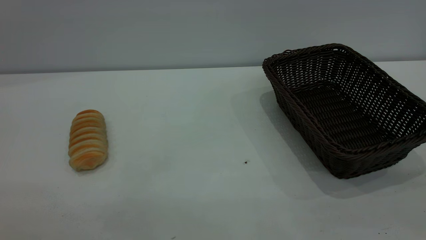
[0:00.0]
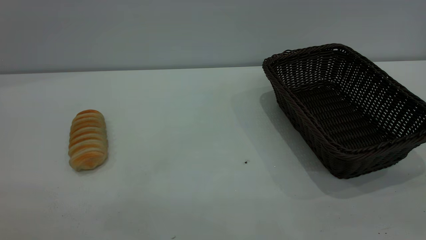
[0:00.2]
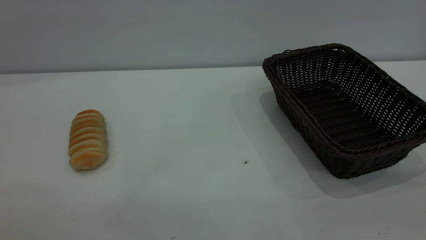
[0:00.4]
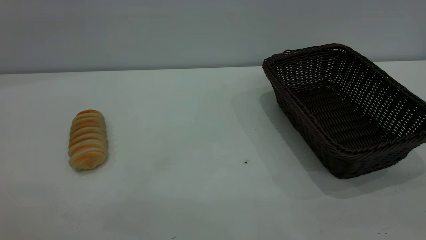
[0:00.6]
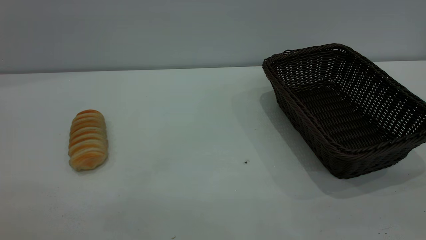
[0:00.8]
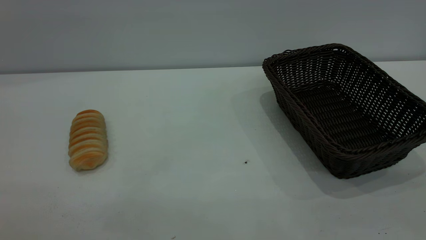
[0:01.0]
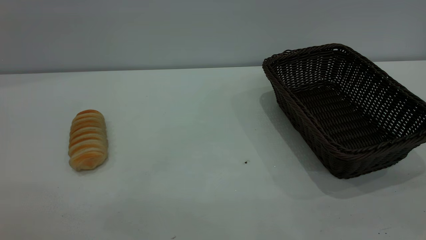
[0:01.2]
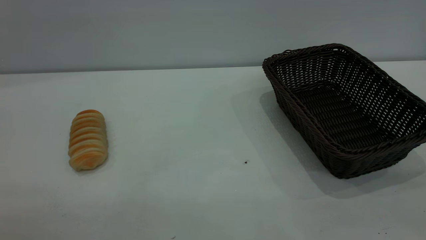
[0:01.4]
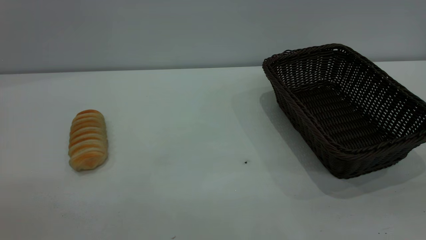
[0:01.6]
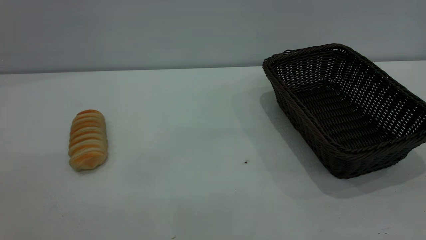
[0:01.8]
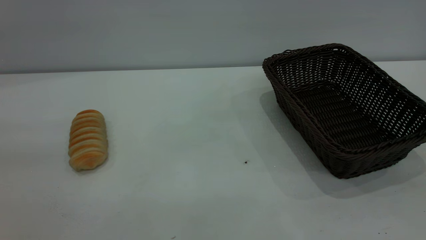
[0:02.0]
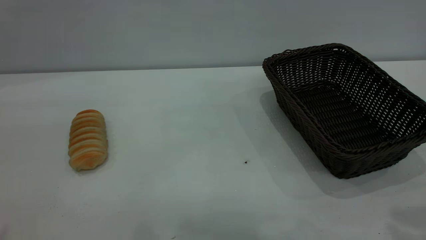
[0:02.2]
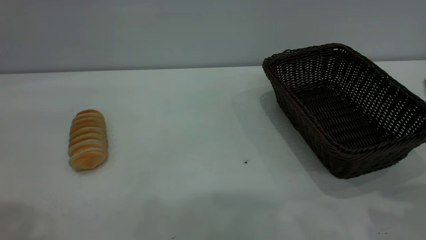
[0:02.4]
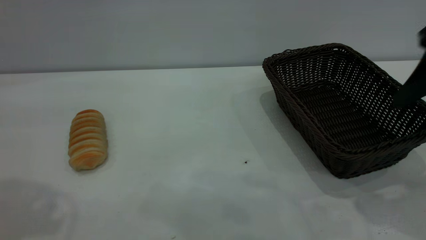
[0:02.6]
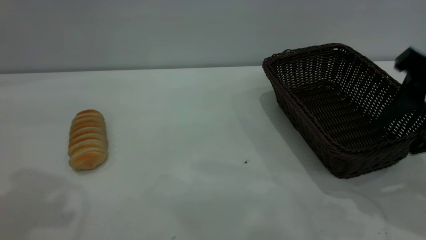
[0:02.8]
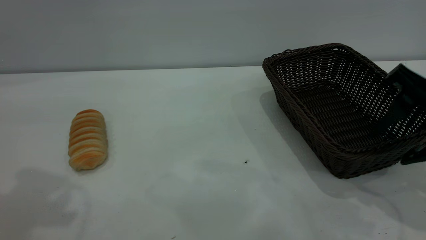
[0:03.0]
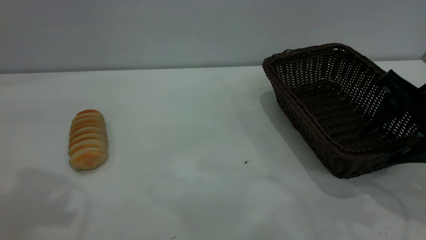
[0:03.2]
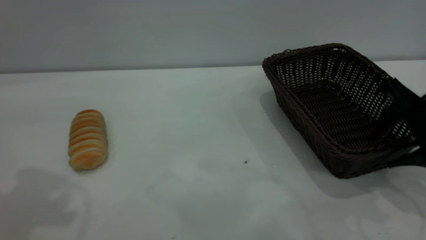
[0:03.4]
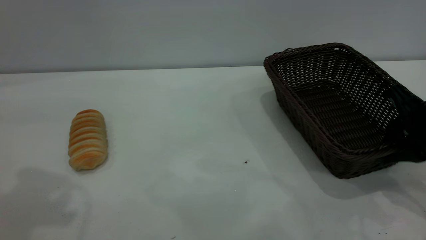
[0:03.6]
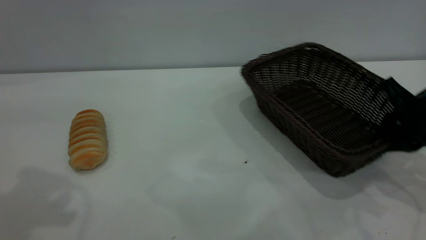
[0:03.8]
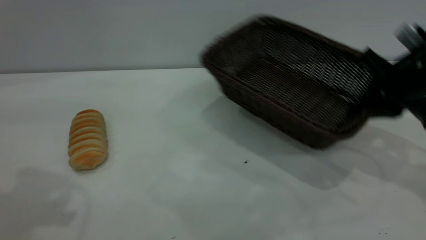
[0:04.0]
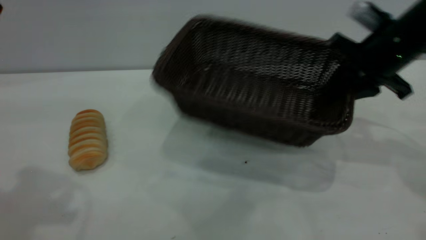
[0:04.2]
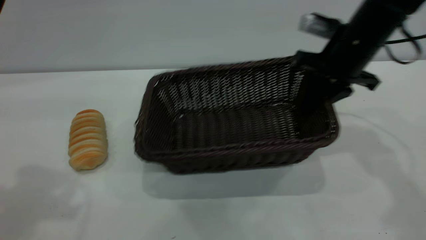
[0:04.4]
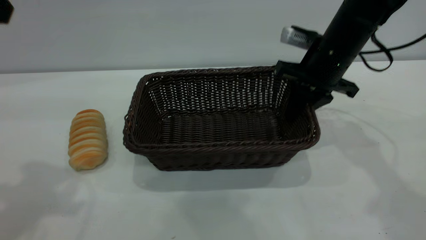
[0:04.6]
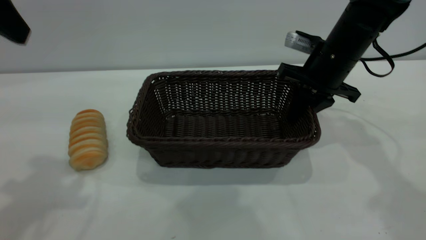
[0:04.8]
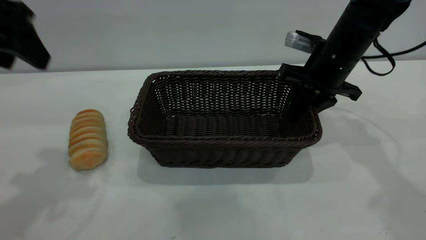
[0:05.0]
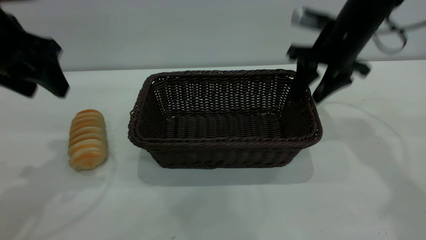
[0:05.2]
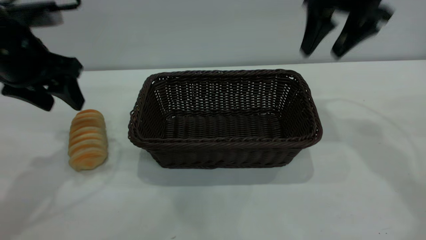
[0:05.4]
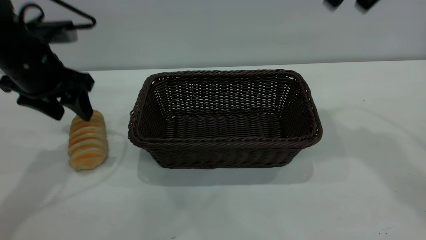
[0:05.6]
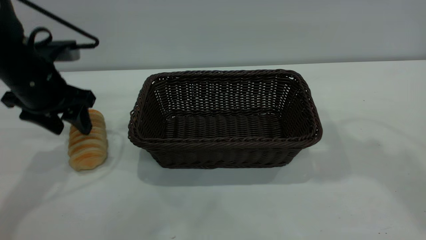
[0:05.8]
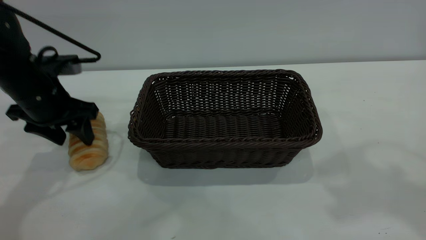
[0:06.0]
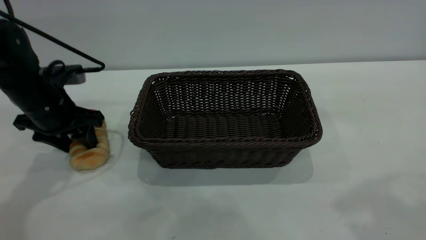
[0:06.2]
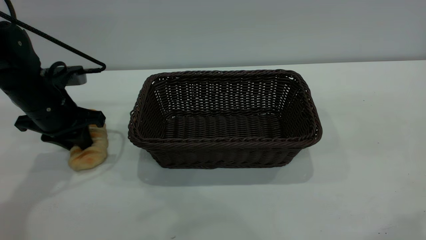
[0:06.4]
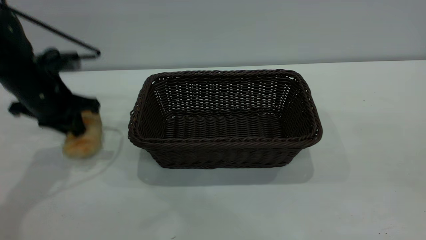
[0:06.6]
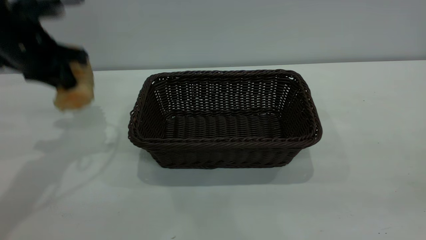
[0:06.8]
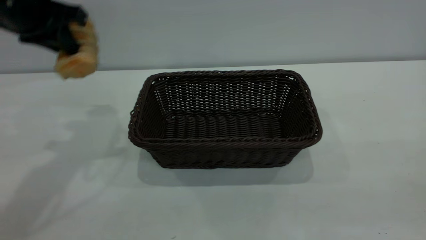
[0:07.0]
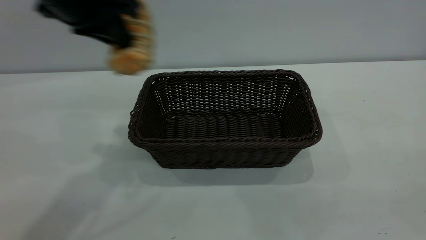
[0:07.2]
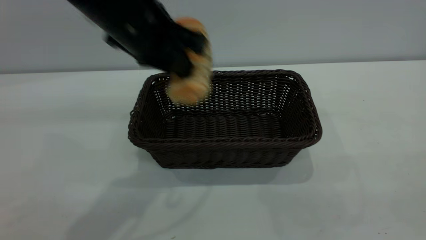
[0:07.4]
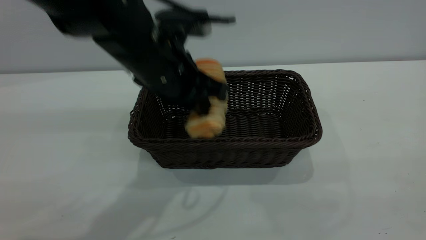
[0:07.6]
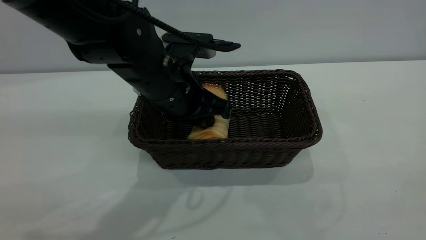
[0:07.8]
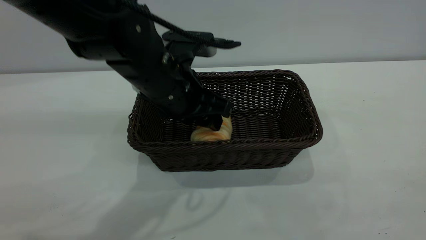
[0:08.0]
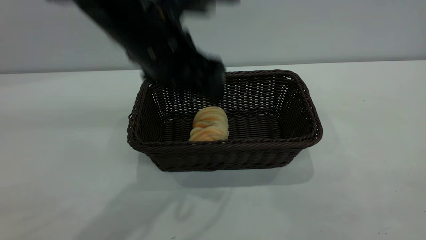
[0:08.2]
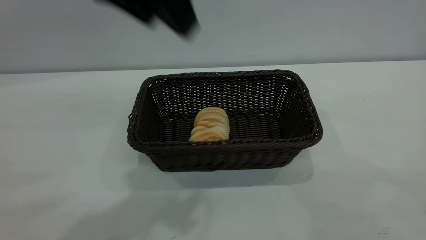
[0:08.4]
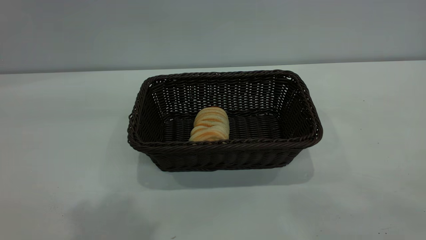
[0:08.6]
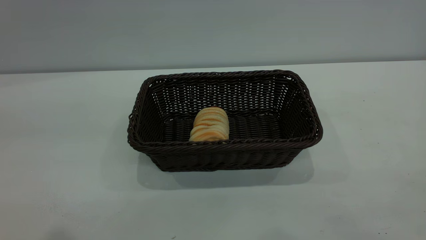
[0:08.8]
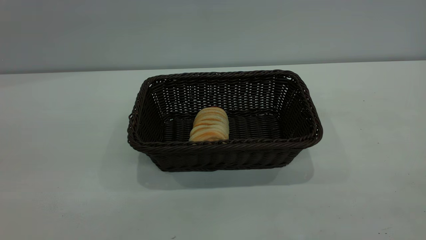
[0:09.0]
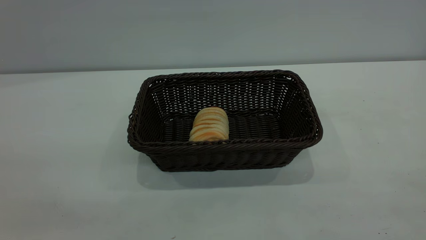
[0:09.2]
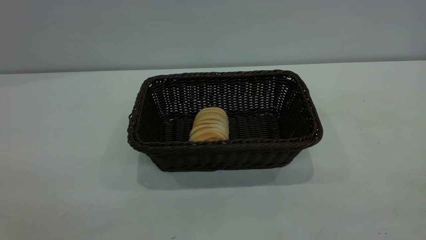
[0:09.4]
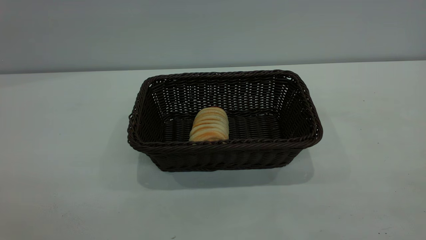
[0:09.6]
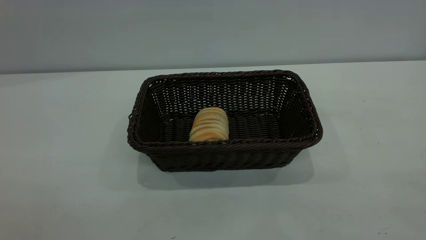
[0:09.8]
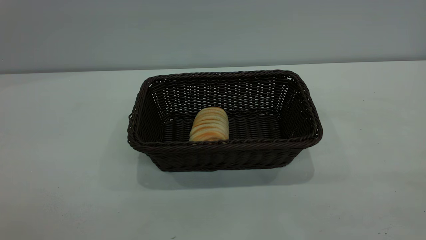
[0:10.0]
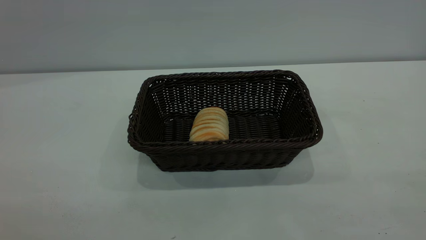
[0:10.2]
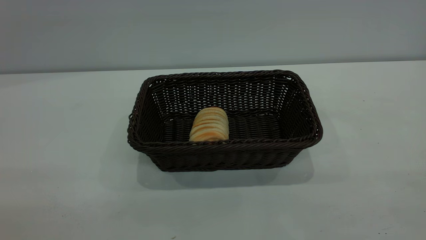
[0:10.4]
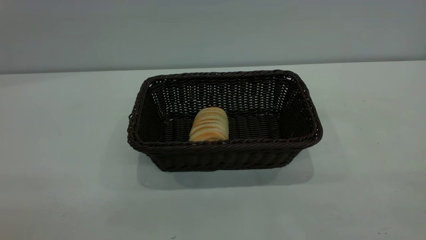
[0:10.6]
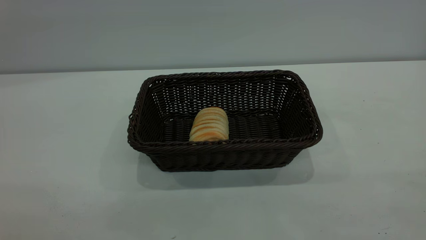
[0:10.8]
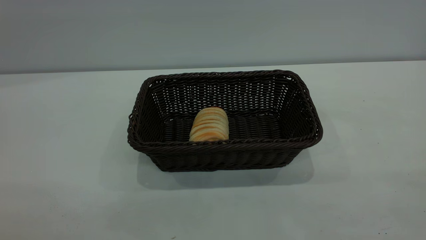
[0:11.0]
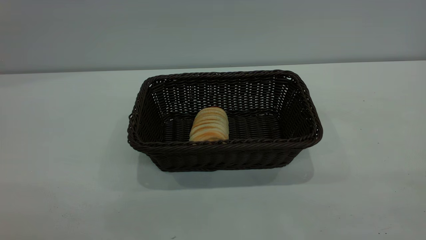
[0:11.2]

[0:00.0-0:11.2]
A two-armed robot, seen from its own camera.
Task of the whole recording: One hand grasps the black basket and places it in the middle of the table, while the other hand picks up the long bread and puts it into the black basket.
Step, 0:00.0 to 0:05.2: Move the basket to the center of view.
Step, 0:06.8 to 0:08.2: place the bread into the basket.
0:01.6 to 0:03.2: The right gripper shifts roughly 35 cm forward and downward.
0:03.2 to 0:04.8: The right gripper goes roughly 20 cm forward and to the left, and closes its fingers.
0:04.8 to 0:06.4: The left gripper goes some 25 cm downward and forward, and closes its fingers. Meanwhile the right gripper travels backward and upward by roughly 35 cm, and opens.
0:06.4 to 0:08.0: The right gripper moves backward, about 15 cm, while the left gripper is displaced to the right by about 20 cm, and opens its fingers.
0:08.0 to 0:09.6: The left gripper moves backward, to the left and upward, some 40 cm.
